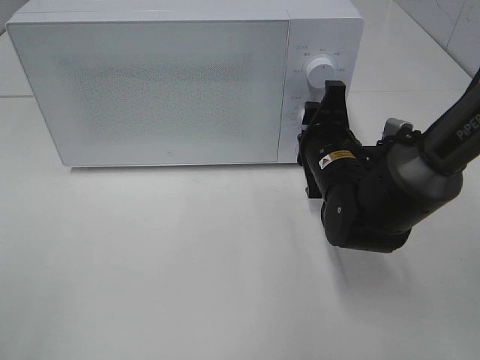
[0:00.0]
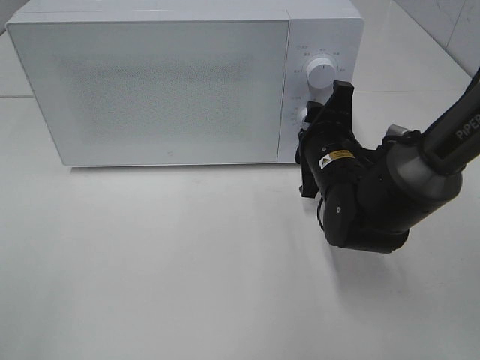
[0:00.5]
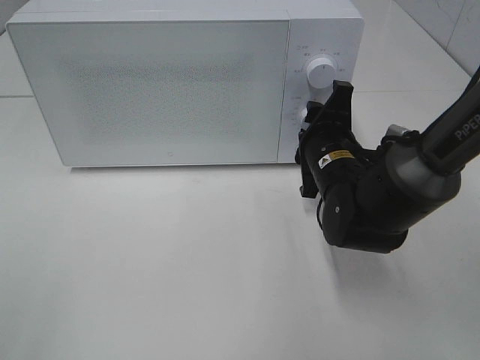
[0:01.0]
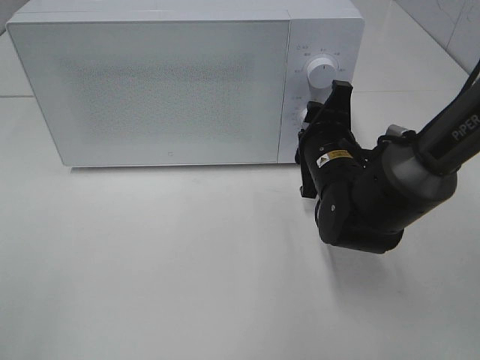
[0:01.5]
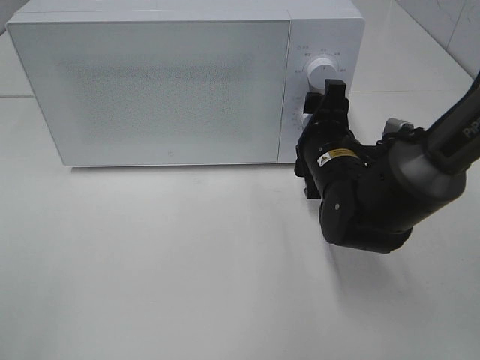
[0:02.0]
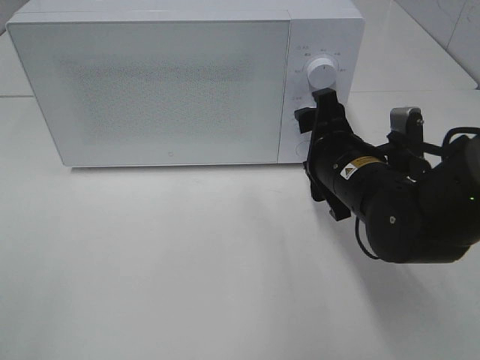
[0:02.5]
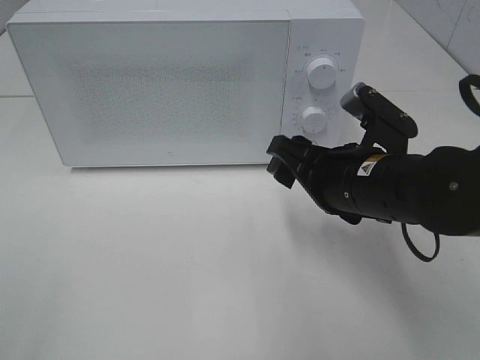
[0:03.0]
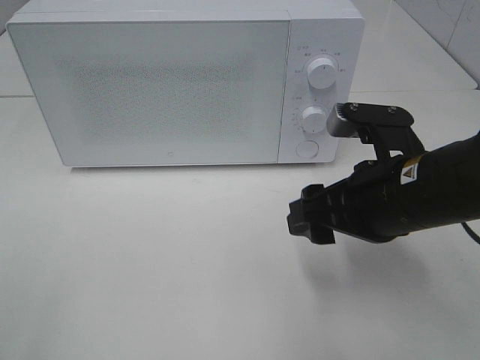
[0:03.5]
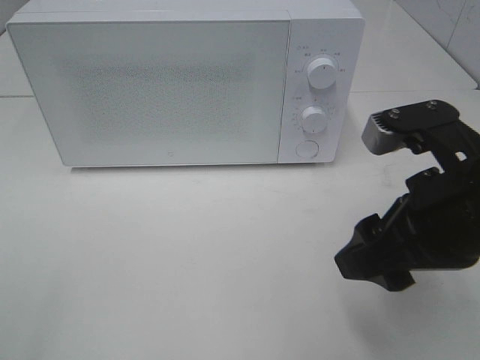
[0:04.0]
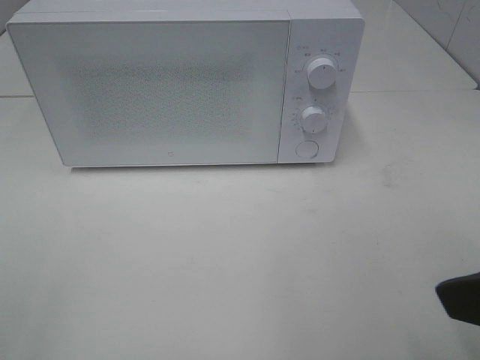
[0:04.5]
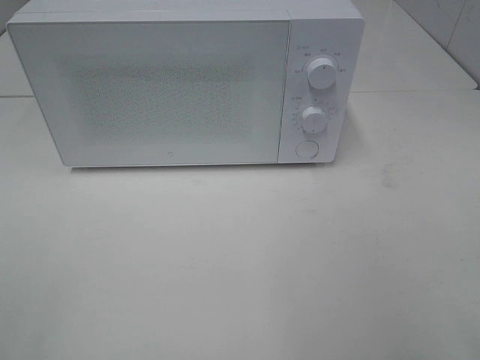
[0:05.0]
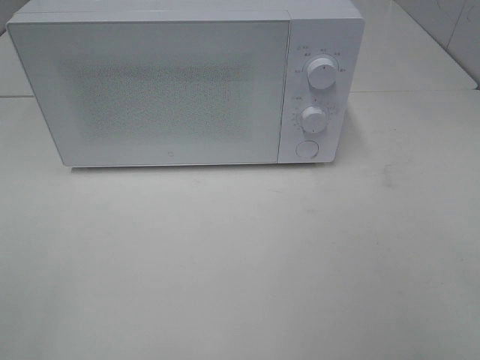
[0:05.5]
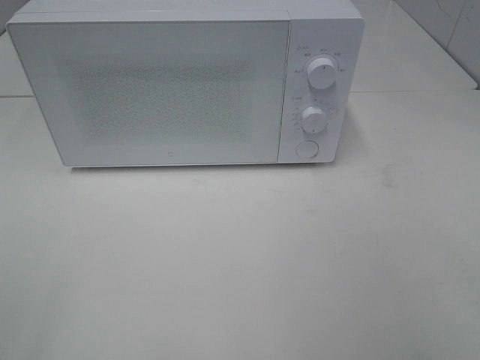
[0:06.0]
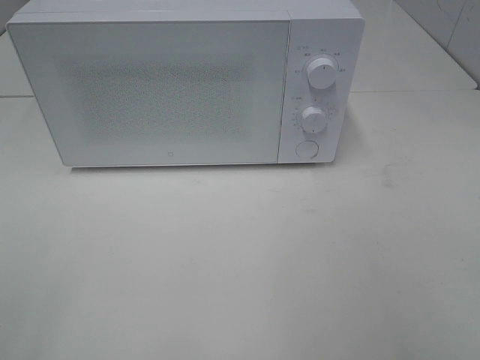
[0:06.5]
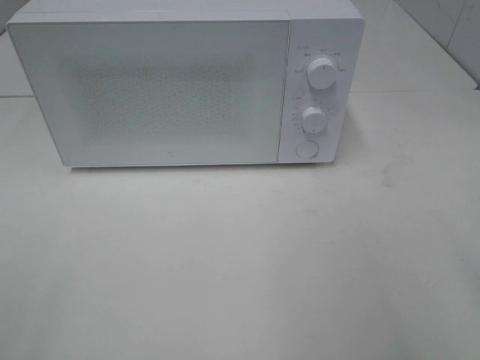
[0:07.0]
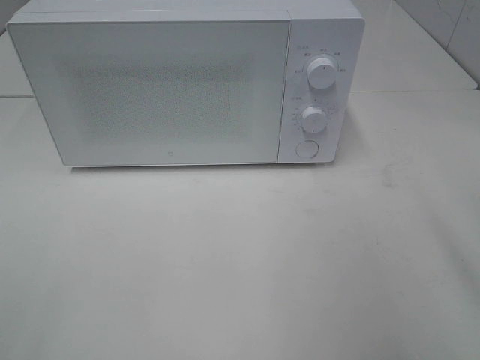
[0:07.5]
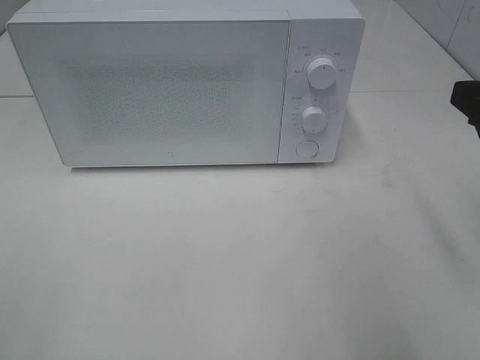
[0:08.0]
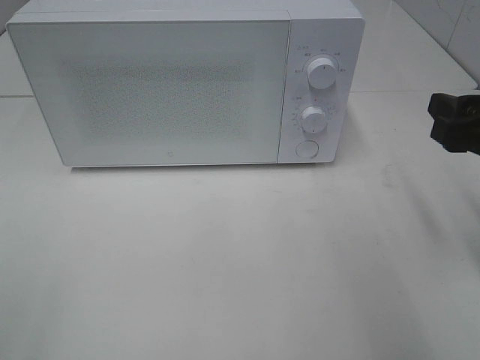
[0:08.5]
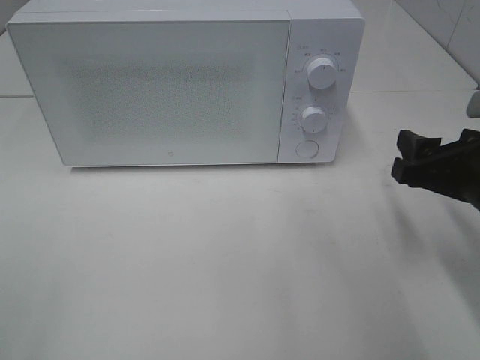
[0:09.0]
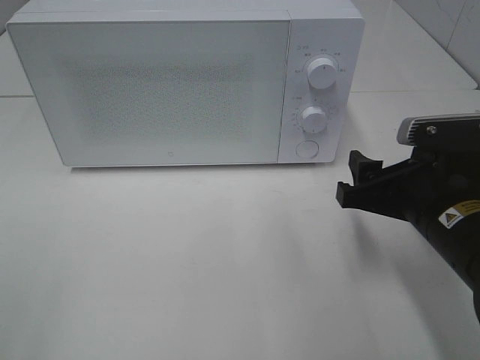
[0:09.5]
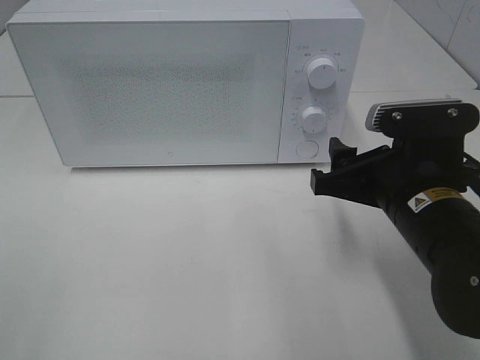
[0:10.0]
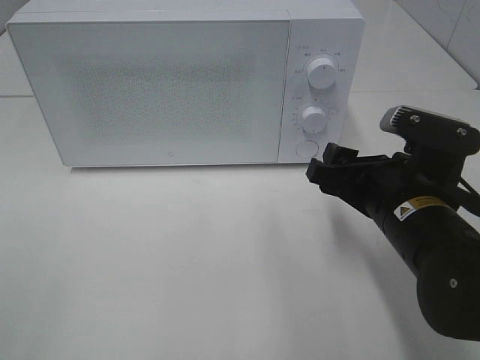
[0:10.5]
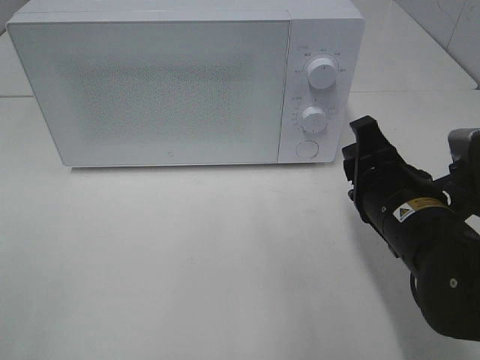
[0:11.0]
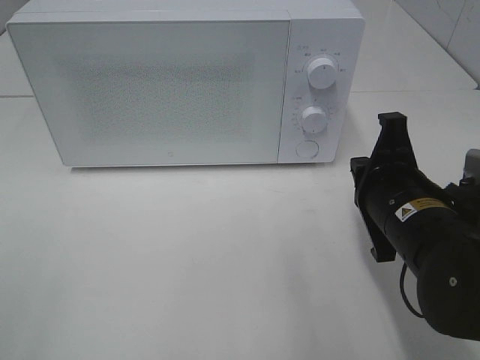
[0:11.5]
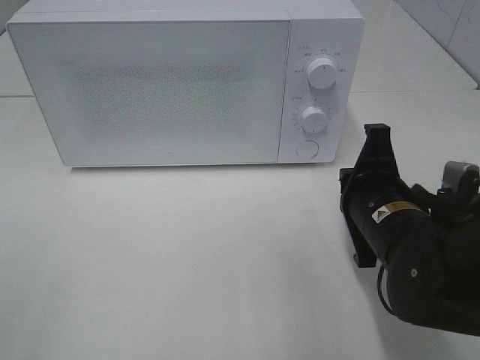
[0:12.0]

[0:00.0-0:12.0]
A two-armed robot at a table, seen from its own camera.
Task of the whole recording: Heat the burger.
0:00.0 to 0:02.0: The grippers make only small movements.
0:02.0 to 0:04.0: The right gripper shifts approximately 20 cm backward and upward.
0:04.0 to 0:06.0: The right gripper is displaced backward and to the right by some 20 cm.
0:08.0 to 0:10.0: The right gripper heads downward and to the left, covering roughly 15 cm.
0:10.0 to 0:12.0: The right gripper closes.

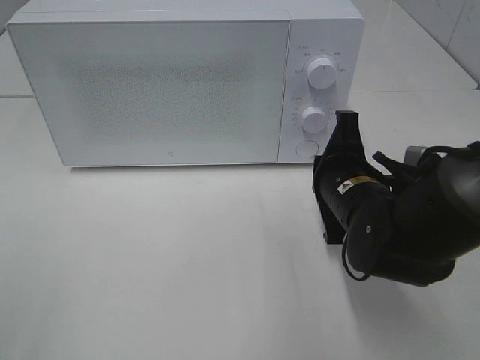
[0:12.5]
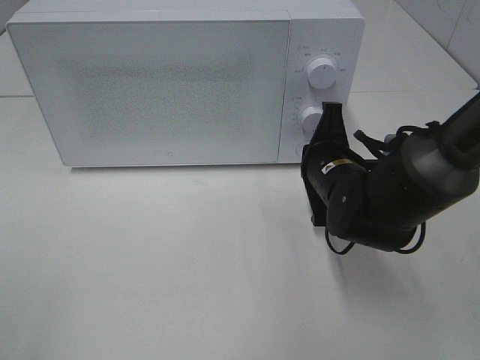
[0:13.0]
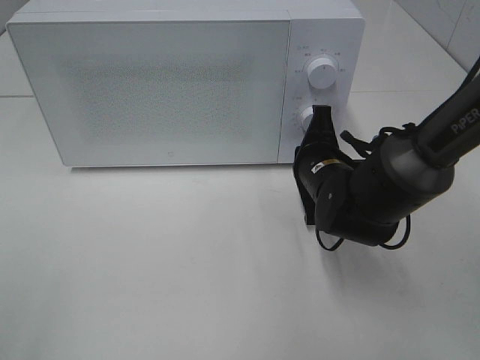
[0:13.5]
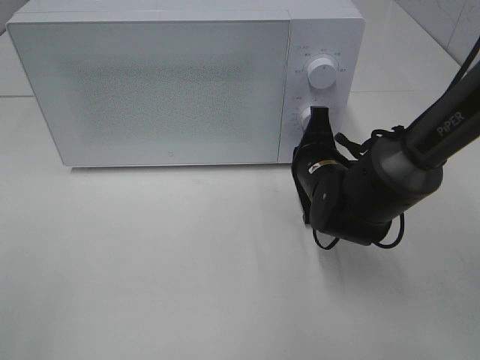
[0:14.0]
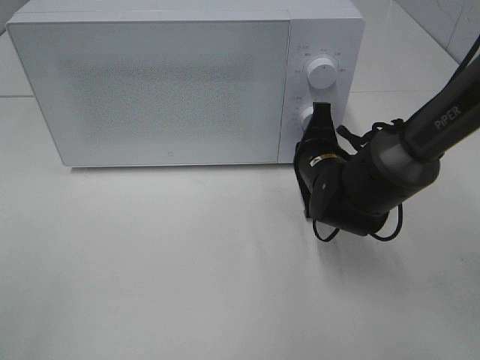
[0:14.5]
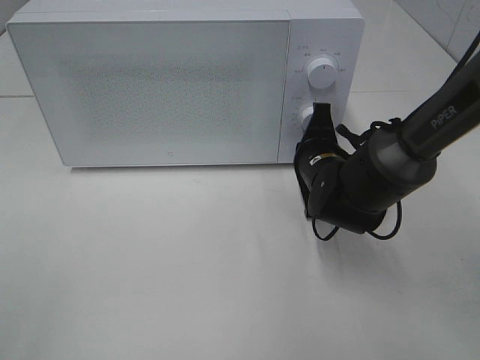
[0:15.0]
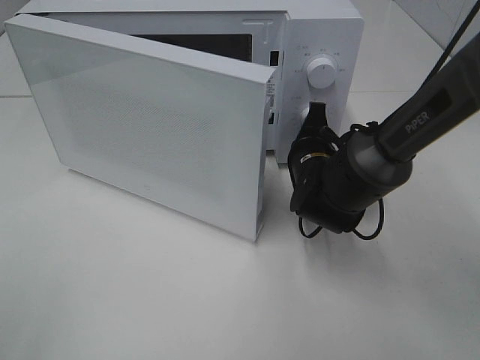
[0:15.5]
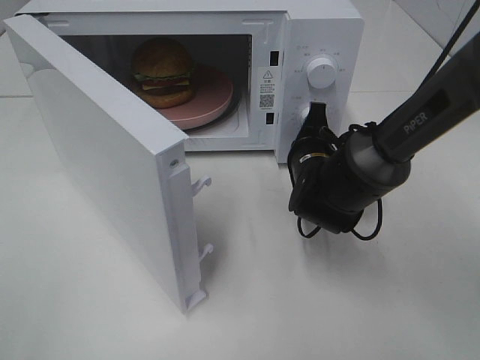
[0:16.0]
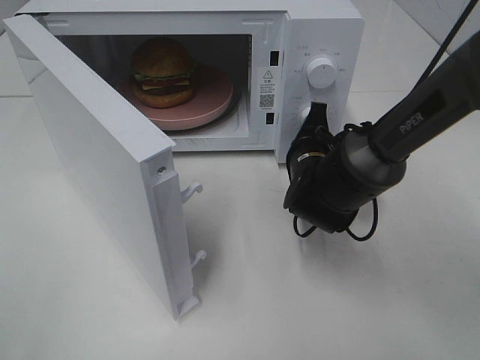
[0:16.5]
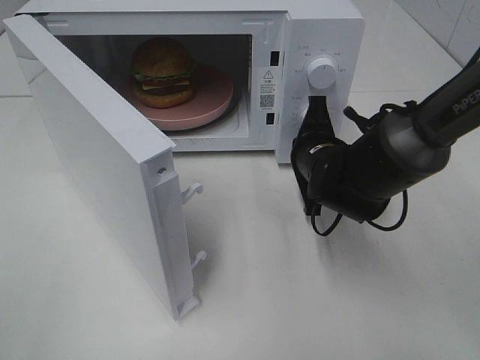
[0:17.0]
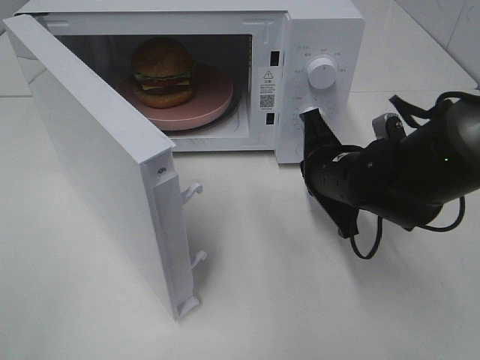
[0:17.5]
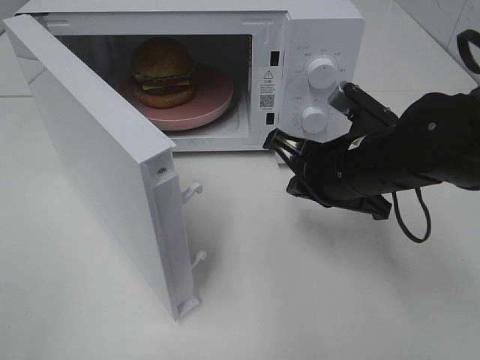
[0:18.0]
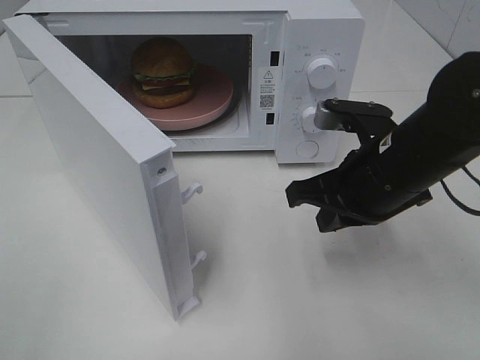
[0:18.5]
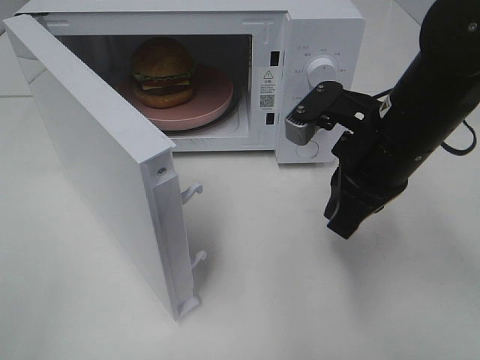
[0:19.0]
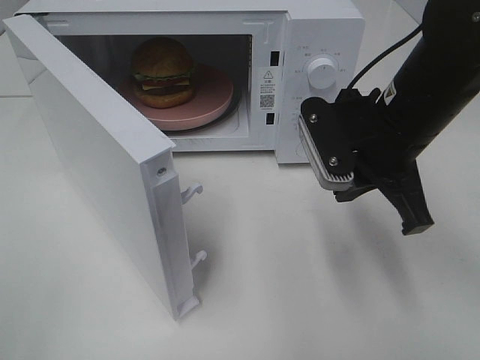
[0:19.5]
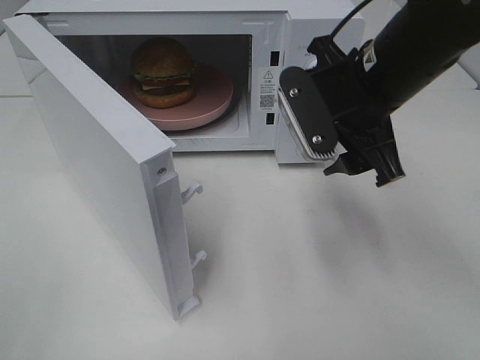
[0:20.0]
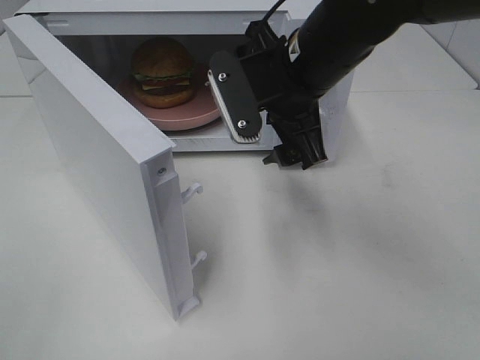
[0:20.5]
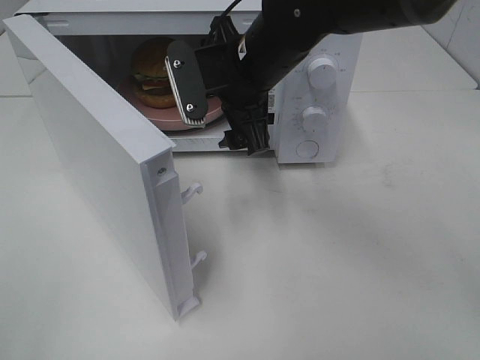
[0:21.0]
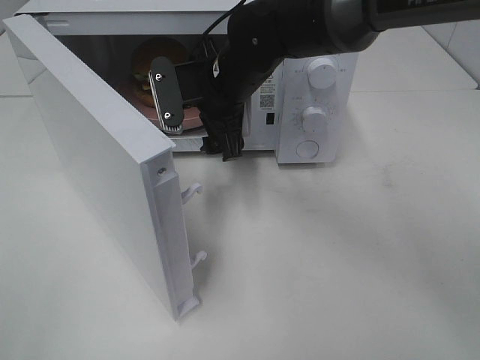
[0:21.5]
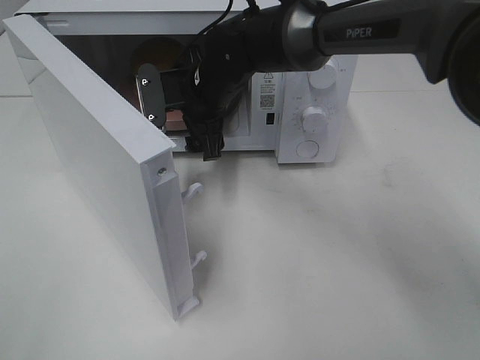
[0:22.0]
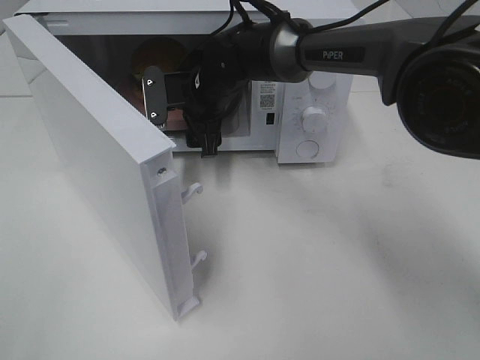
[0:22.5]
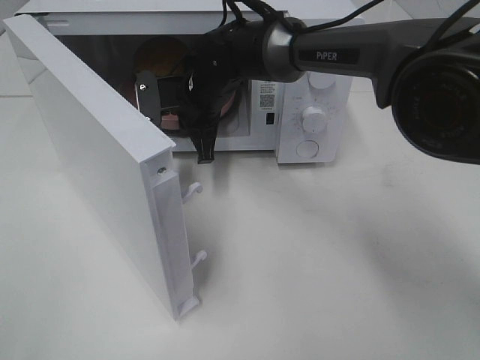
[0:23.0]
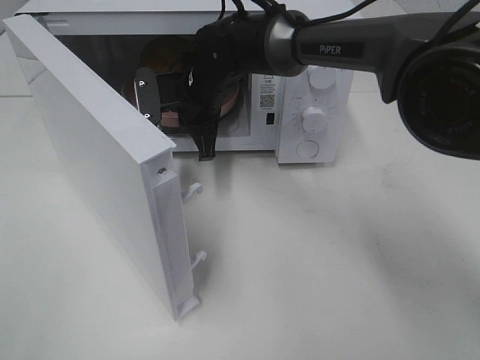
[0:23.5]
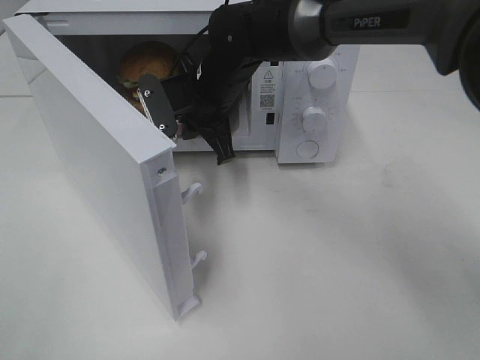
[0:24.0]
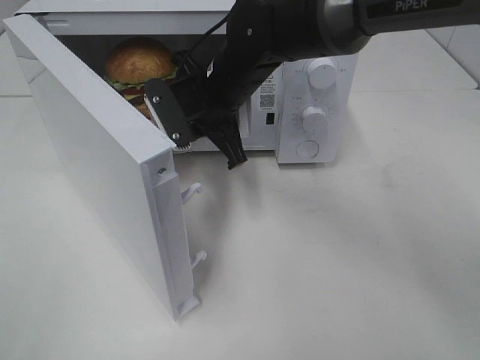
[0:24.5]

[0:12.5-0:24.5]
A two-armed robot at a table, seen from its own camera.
Task of the whole recording: Heat the burger.
Step, 0:12.5 to 0:17.0: Right hand: press the switch.
Step, 0:17.5 to 0:23.0: Right hand: grab the plate with the hamburger.
0:12.5 to 0:14.5: The right gripper is displaced forward by some 5 cm.
0:16.5 to 0:18.5: The right gripper heads backward and upward, covering roughly 15 cm.
0:18.5 to 0:20.5: The right gripper goes some 10 cm to the left, upward and forward, and opens its fingers.
0:20.5 to 0:22.5: The right gripper travels forward, downward and to the left by approximately 20 cm.
0:22.5 to 0:24.5: The right gripper heads backward, covering approximately 5 cm, and closes.

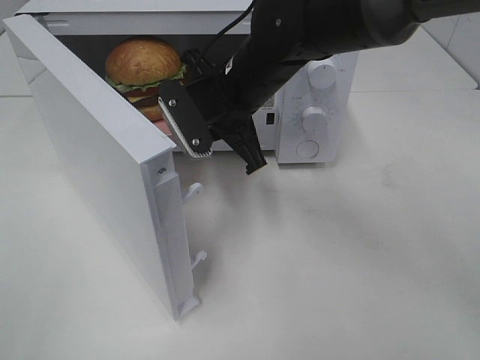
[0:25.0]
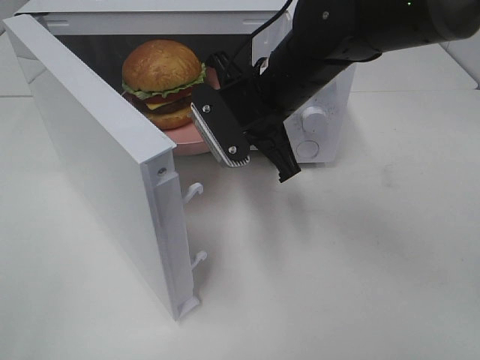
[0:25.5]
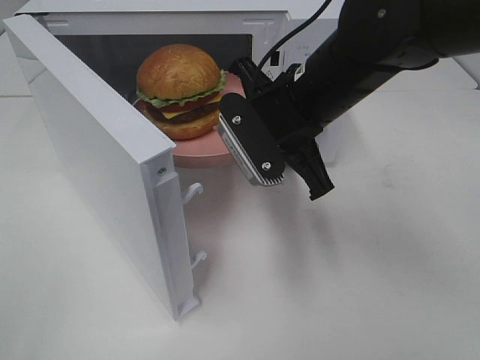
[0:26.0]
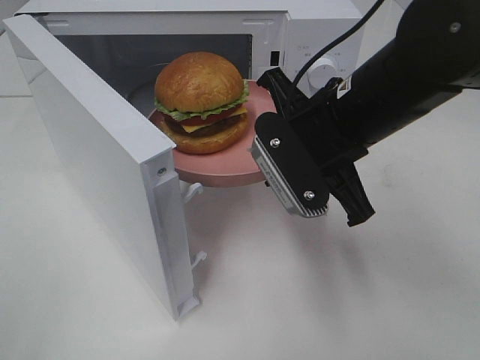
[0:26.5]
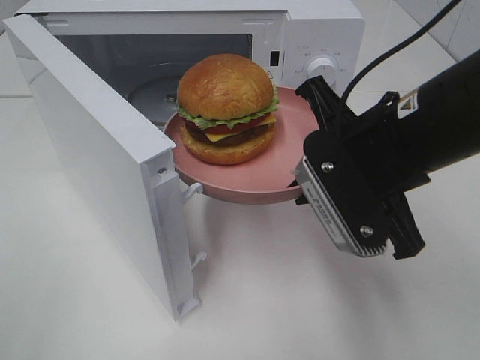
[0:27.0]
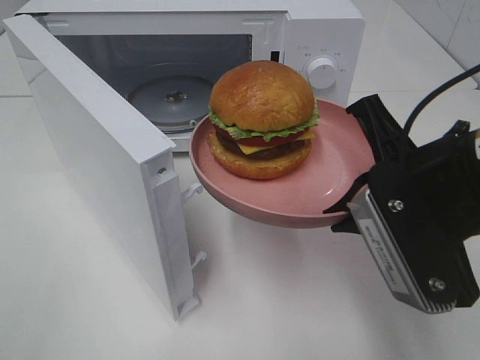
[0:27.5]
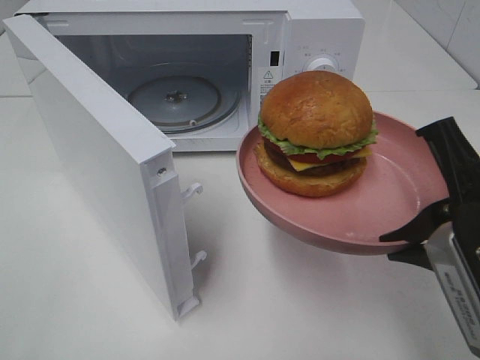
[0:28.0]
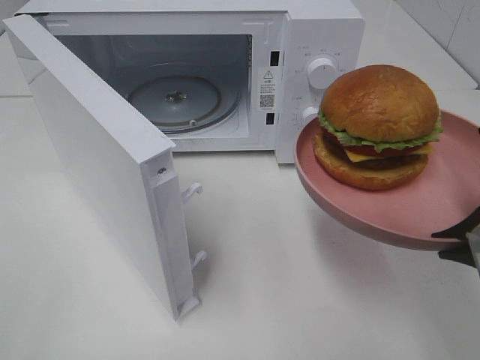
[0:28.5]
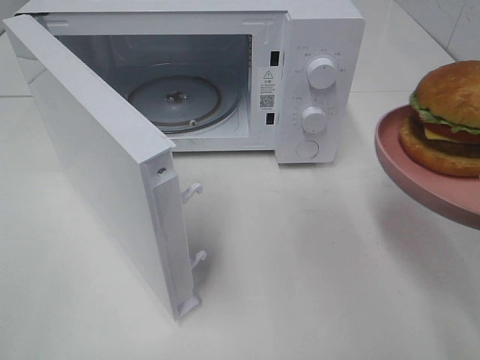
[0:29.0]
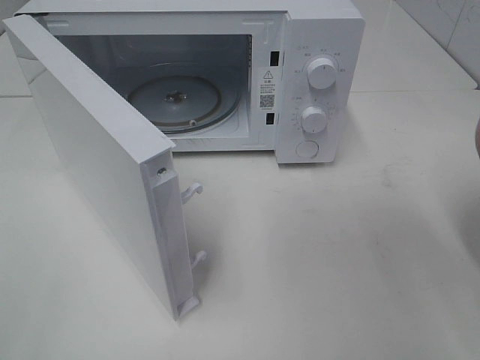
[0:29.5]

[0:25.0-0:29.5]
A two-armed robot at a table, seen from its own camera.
Task of the whole recording: Heat the burger.
0:25.0 to 0:27.0: The right gripper moves backward and to the right, roughly 20 cm.
0:27.0 to 0:29.5: The right gripper is displaced to the right and backward by approximately 15 cm.